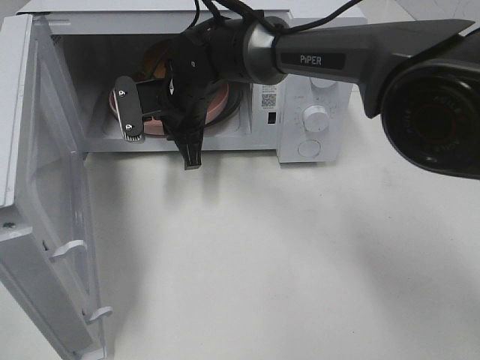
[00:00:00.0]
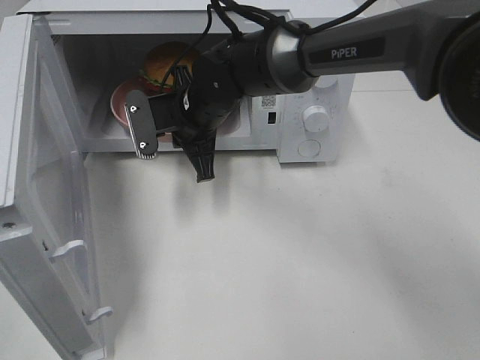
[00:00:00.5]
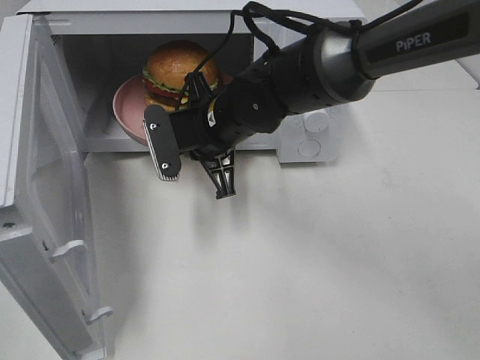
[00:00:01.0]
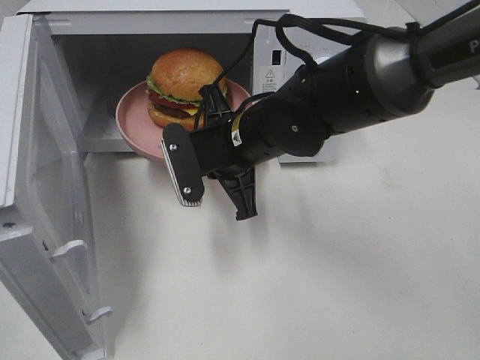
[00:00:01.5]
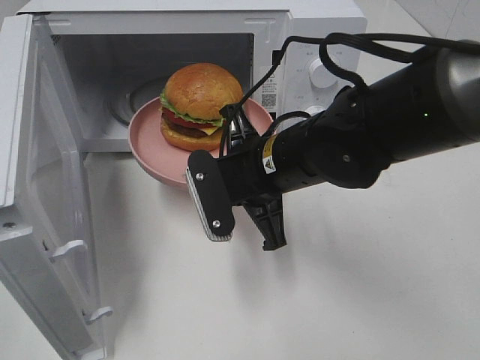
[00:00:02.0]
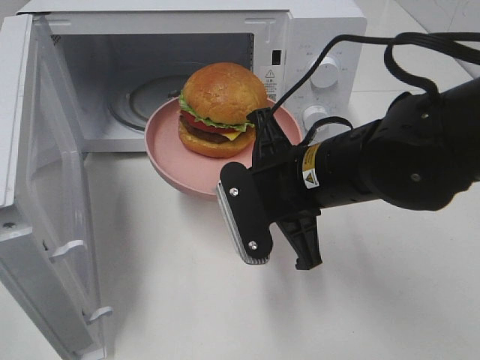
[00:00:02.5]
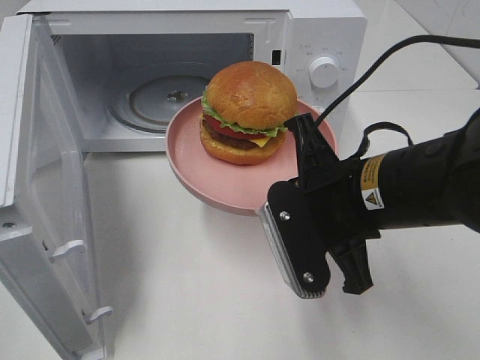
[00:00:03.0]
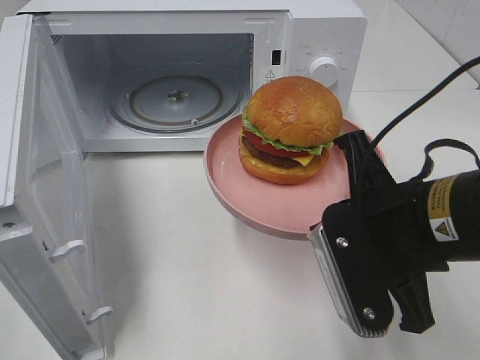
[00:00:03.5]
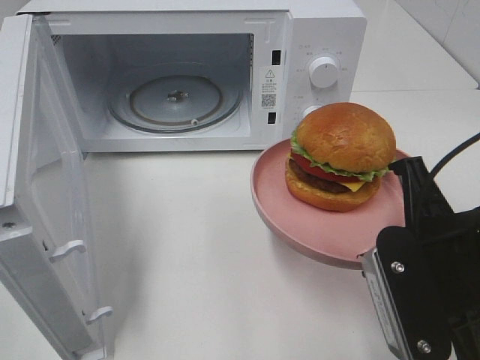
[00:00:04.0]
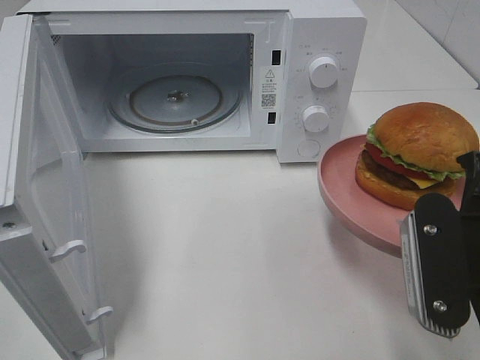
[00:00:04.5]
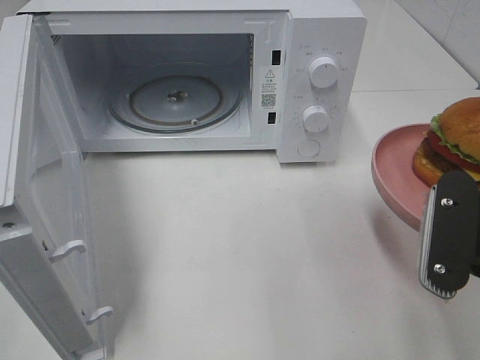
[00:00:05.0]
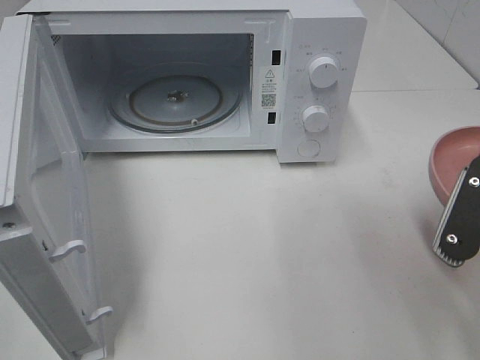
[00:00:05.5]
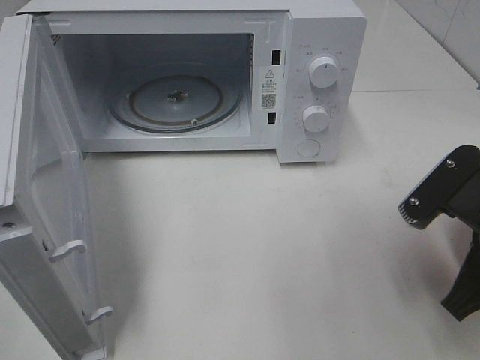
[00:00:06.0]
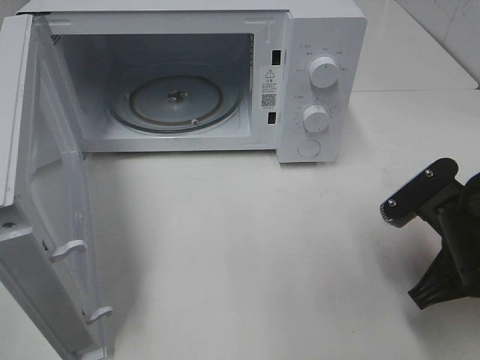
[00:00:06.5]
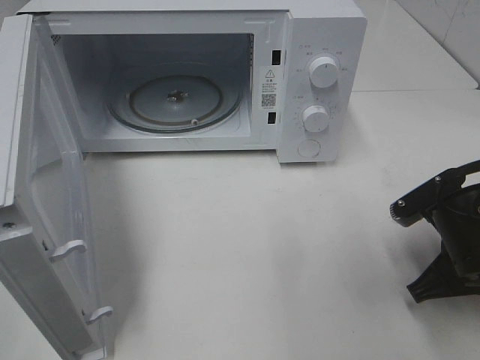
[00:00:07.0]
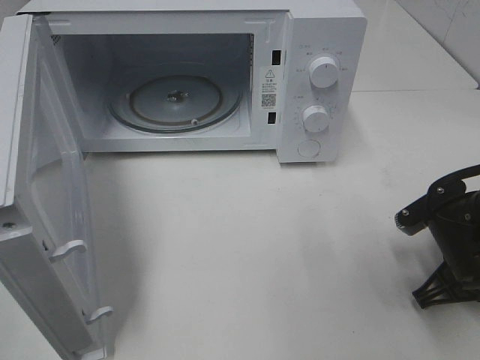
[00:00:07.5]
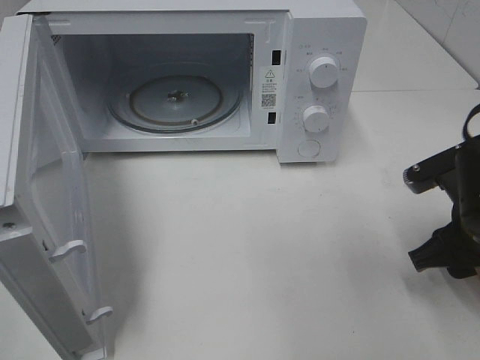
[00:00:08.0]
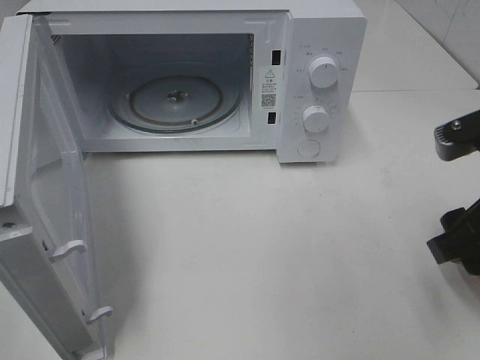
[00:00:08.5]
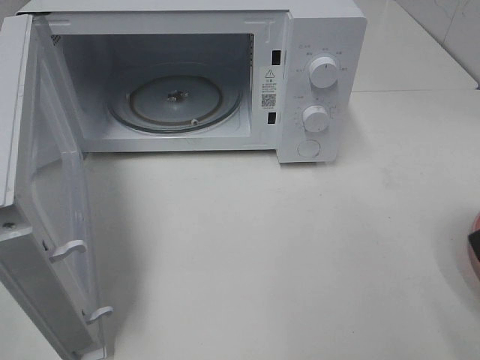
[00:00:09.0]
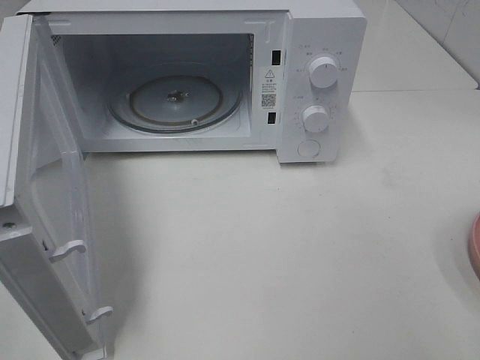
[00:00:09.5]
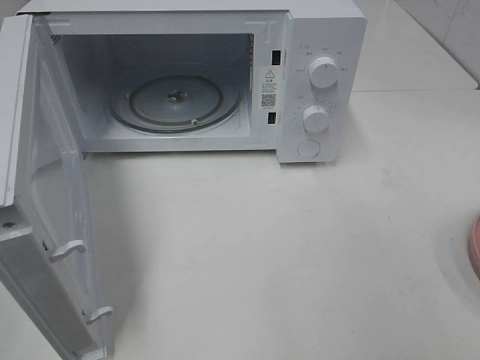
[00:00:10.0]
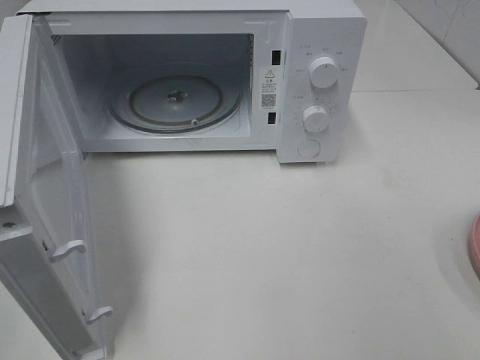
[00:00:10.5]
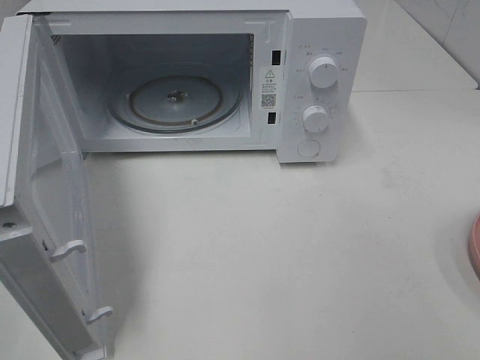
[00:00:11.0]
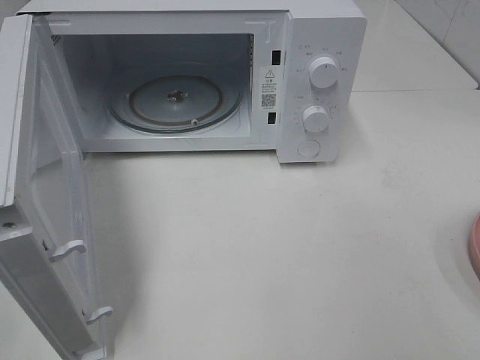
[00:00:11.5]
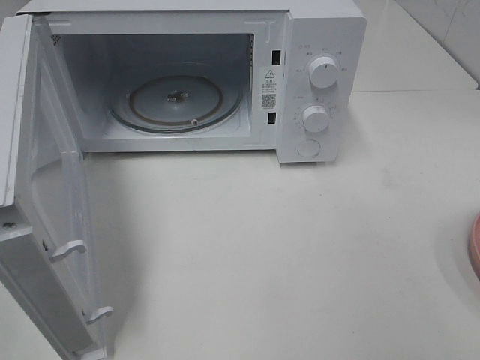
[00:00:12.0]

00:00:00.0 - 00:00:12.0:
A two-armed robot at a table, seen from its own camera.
Task of the whole recording: Heat the burger.
Step, 00:00:00.0 - 00:00:07.5: Right hand: place the plate on the table.
00:00:00.0 - 00:00:02.0: The right gripper goes roughly 20 cm backward and to the right.
00:00:02.0 - 00:00:04.0: The right gripper goes roughly 20 cm backward and to the right.
00:00:04.0 - 00:00:06.0: The right gripper ends up some 5 cm from where it was.
00:00:06.0 - 00:00:08.0: The right gripper opens its fingers.
00:00:08.0 - 00:00:10.0: The right gripper heads backward and upward, covering some 25 cm.
00:00:10.0 - 00:00:12.0: Both grippers stay put.

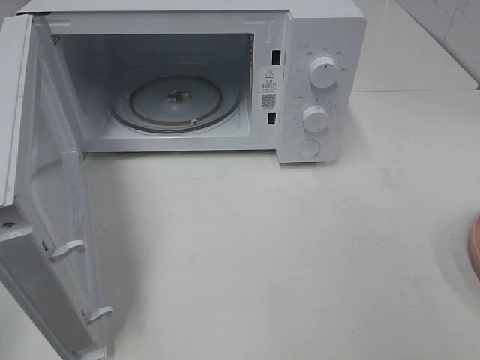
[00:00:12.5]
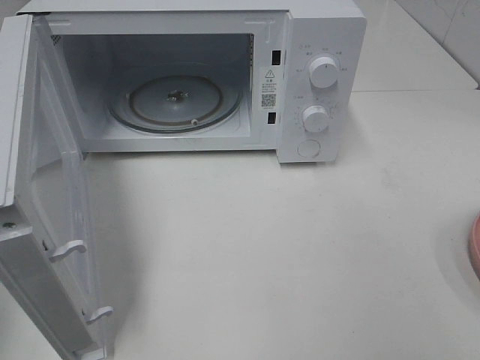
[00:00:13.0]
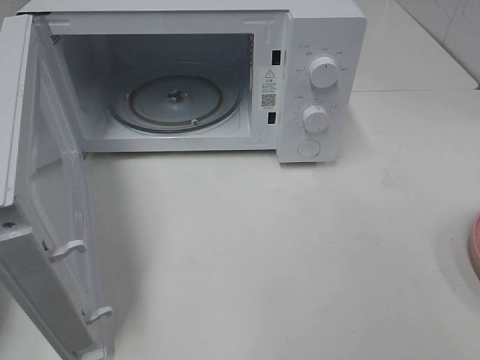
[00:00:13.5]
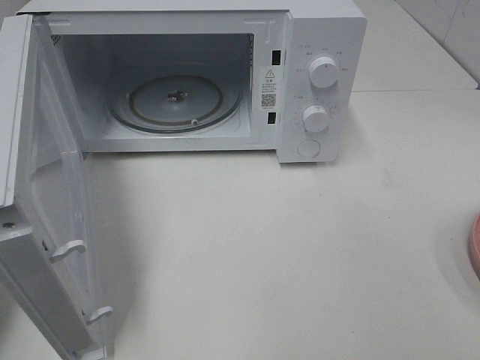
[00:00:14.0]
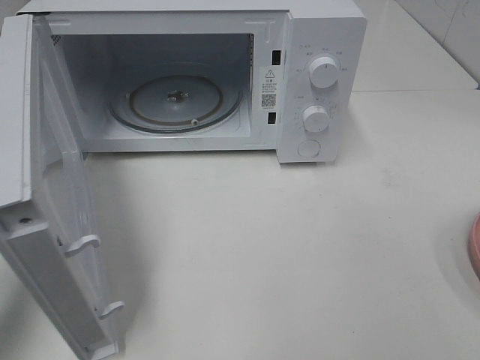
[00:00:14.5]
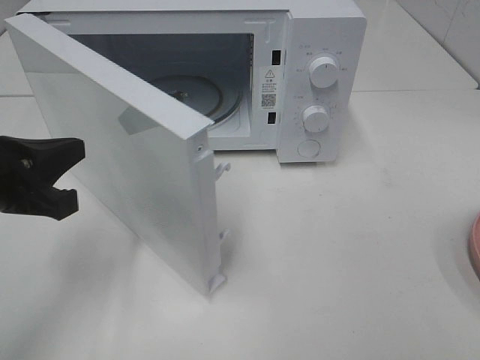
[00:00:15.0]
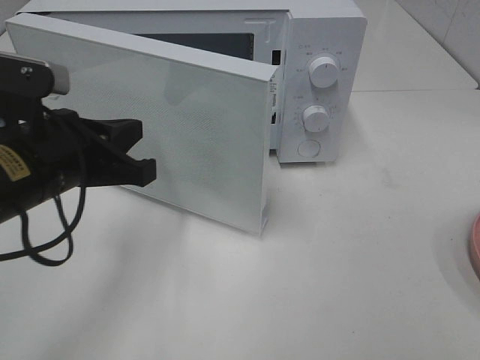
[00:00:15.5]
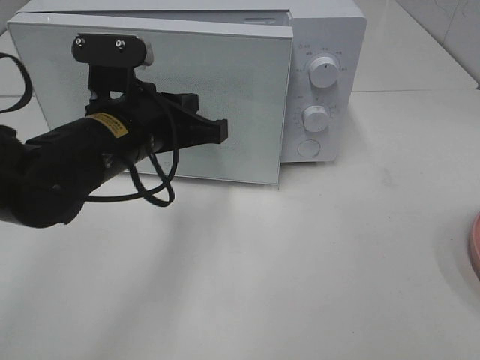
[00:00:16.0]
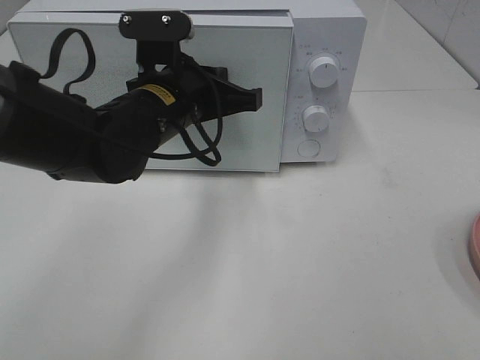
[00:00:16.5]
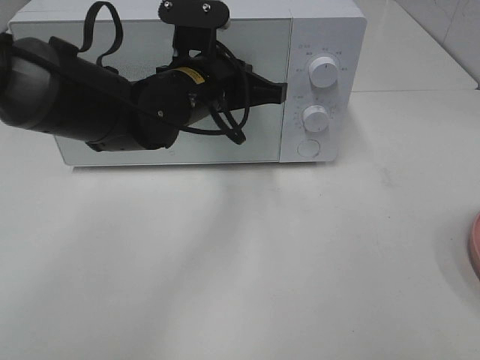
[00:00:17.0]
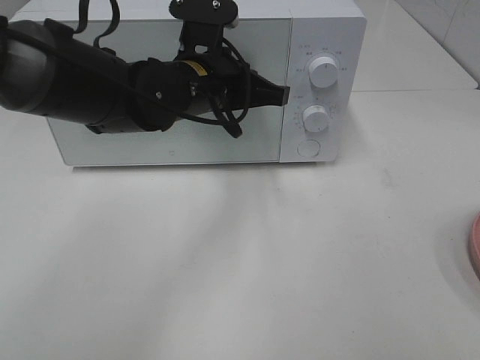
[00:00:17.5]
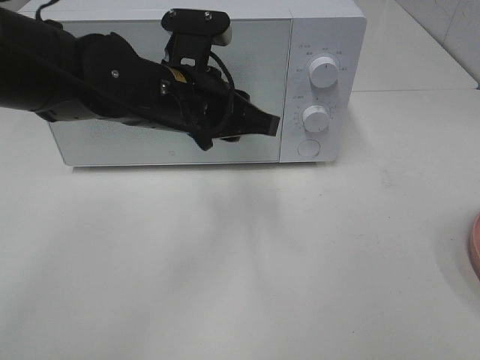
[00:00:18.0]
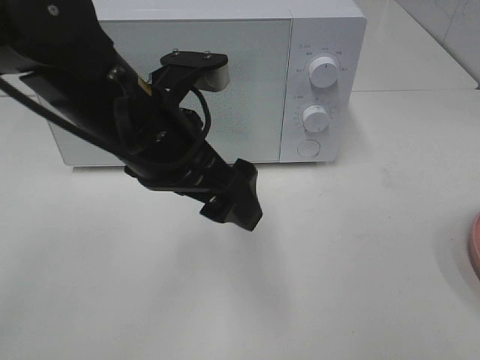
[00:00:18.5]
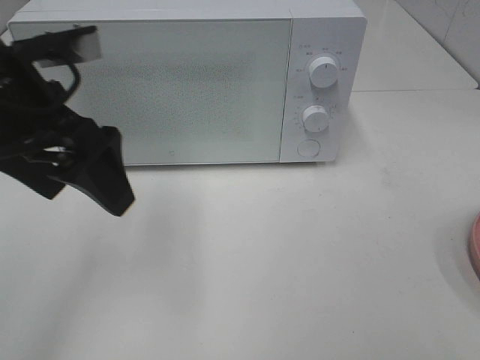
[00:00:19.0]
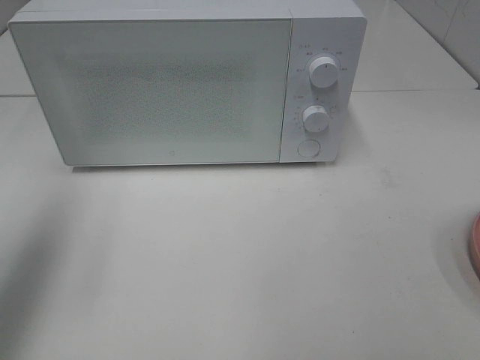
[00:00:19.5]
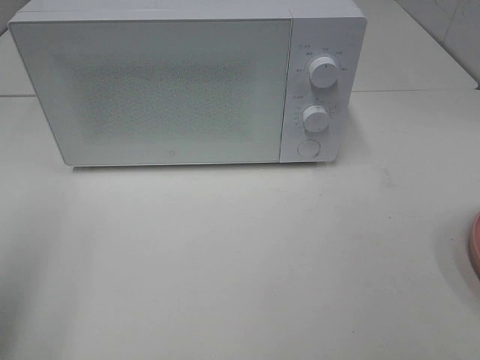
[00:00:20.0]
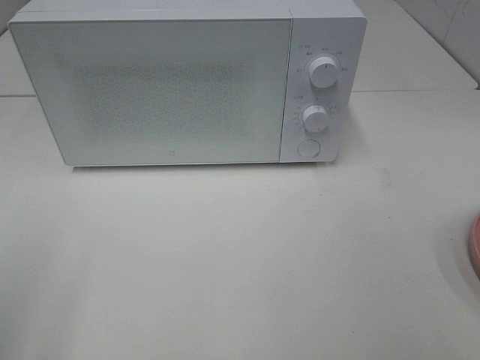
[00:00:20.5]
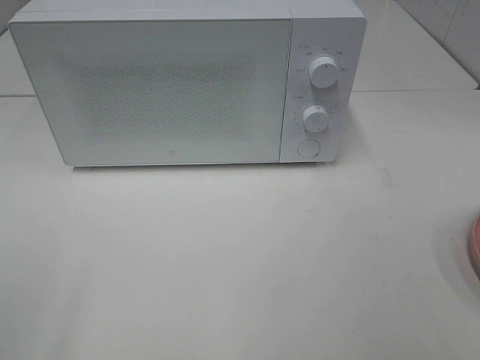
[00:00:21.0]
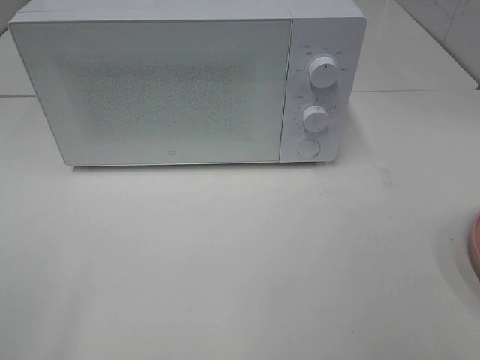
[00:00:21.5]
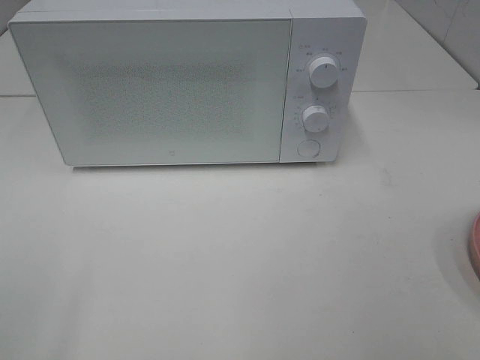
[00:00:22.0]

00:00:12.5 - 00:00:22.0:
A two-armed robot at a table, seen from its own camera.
Task of the whole recording: Heat the burger.
Step, 00:00:12.5 - 00:00:17.5: Left hand: close the microwave door.
00:00:12.5 - 00:00:14.5: The left gripper heads forward and downward, covering some 20 cm, and closes its fingers.
00:00:14.5 - 00:00:16.5: The left gripper moves to the right and forward, roughly 25 cm.
00:00:16.5 - 00:00:18.0: The left gripper opens up.
00:00:18.0 - 00:00:20.0: The left gripper is displaced to the left and backward by approximately 30 cm, and opens its fingers.
00:00:20.0 - 00:00:22.0: The left gripper heads backward, covering approximately 15 cm.

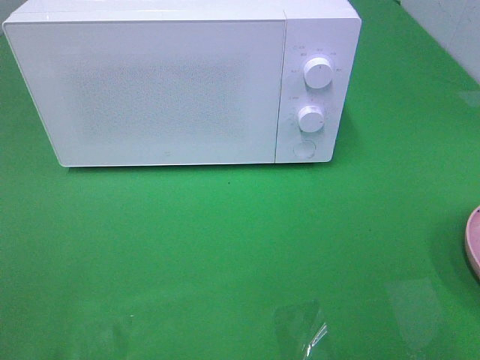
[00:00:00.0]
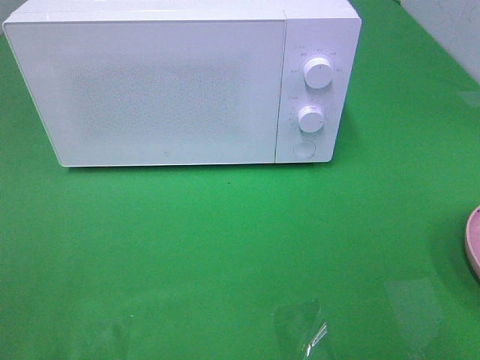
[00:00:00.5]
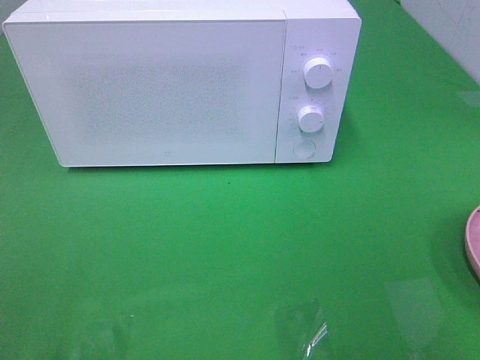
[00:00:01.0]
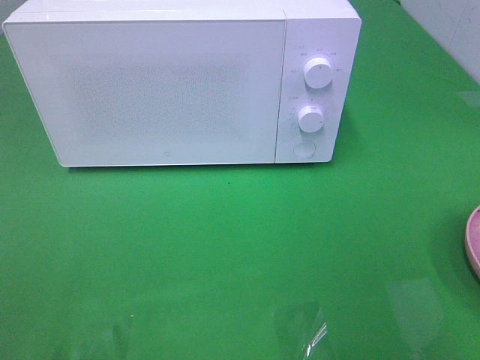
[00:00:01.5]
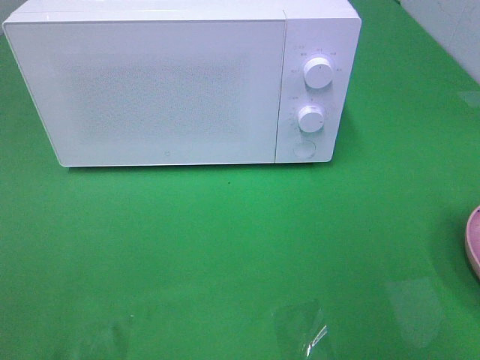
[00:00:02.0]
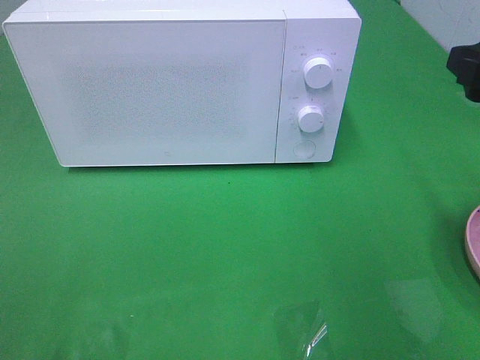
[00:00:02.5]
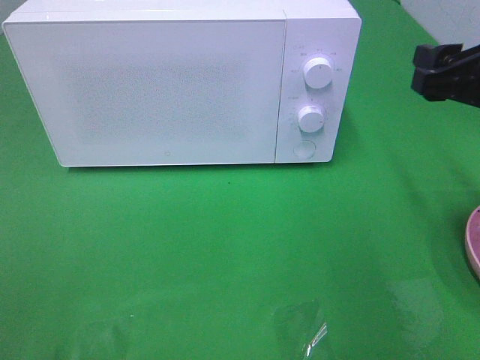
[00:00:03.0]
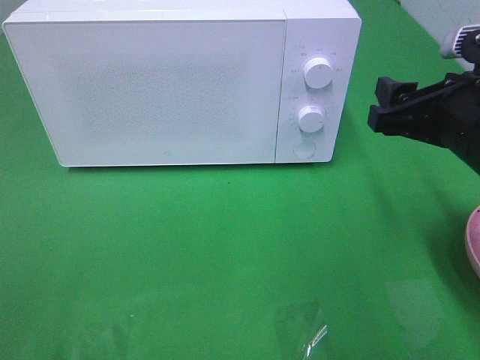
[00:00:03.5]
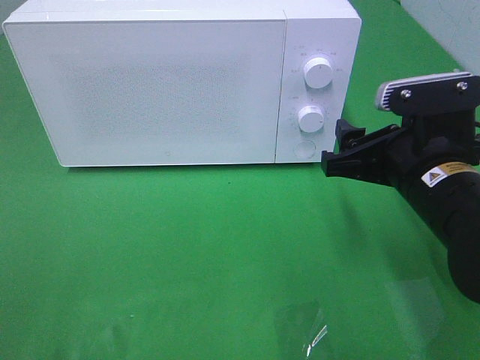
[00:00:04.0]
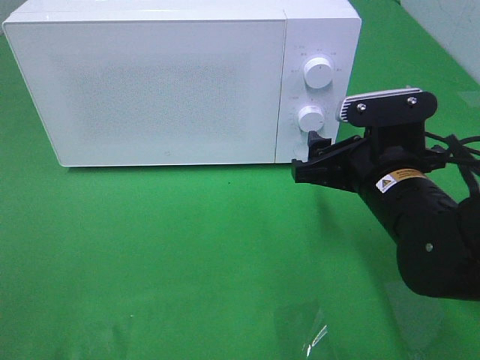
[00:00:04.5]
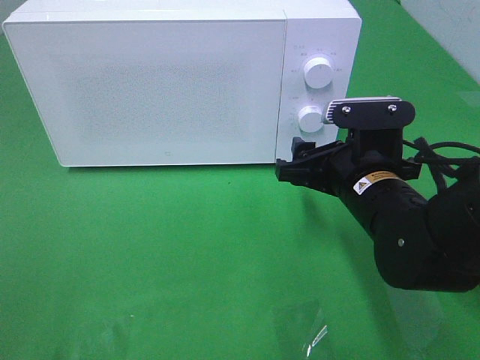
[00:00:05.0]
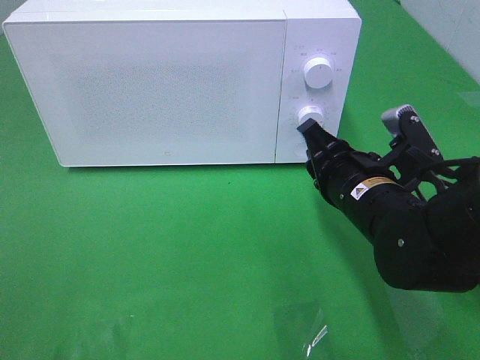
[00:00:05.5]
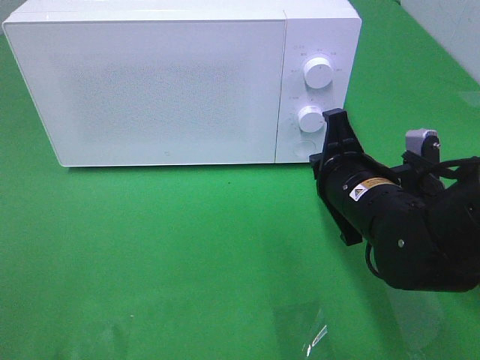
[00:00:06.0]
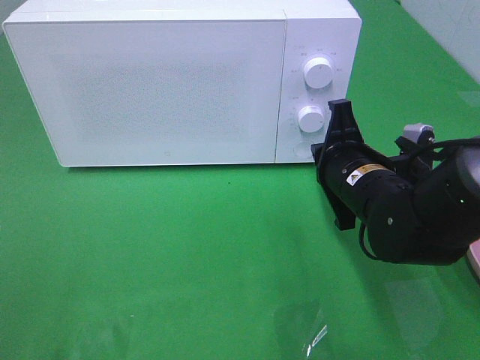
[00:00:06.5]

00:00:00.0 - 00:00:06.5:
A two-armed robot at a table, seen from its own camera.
Task of the whole recording: Heat the burger.
00:00:02.0 - 00:00:04.5: The right gripper moves downward, to the left and forward, roughly 20 cm.
00:00:04.5 - 00:00:06.5: The right gripper closes up.
